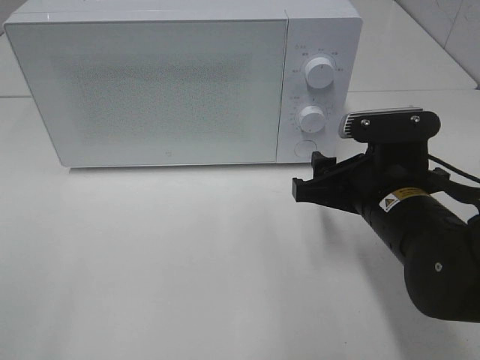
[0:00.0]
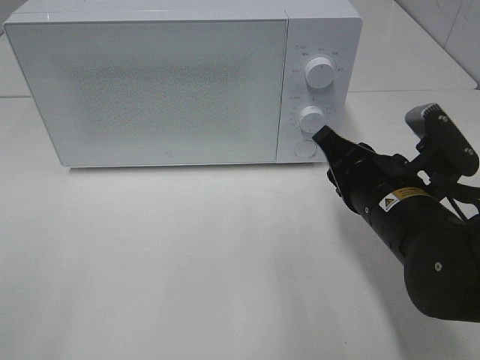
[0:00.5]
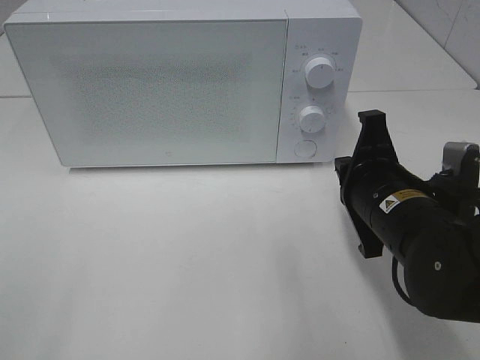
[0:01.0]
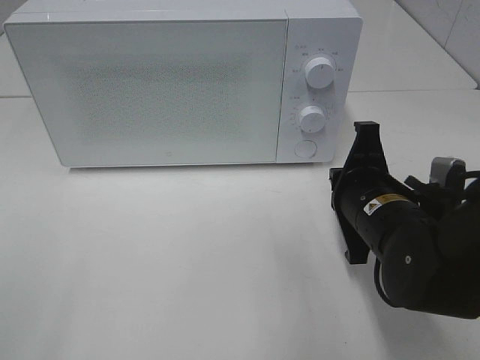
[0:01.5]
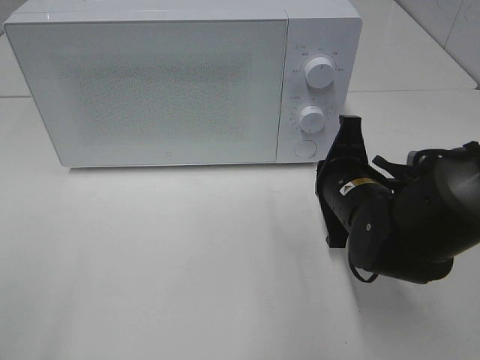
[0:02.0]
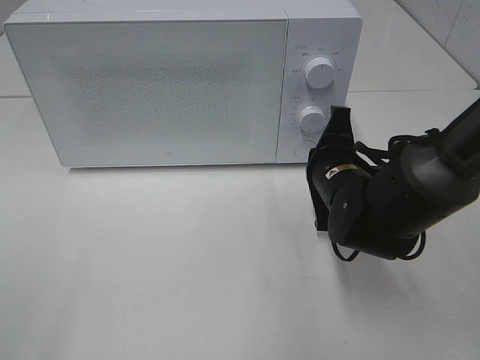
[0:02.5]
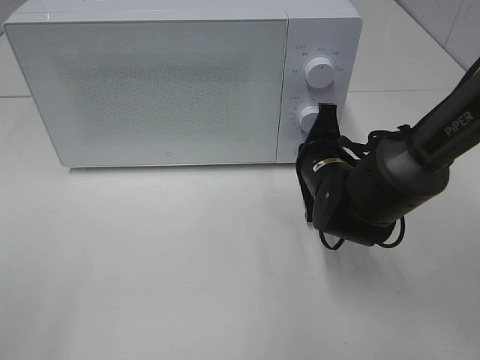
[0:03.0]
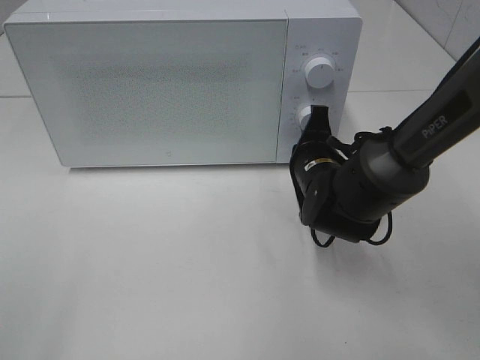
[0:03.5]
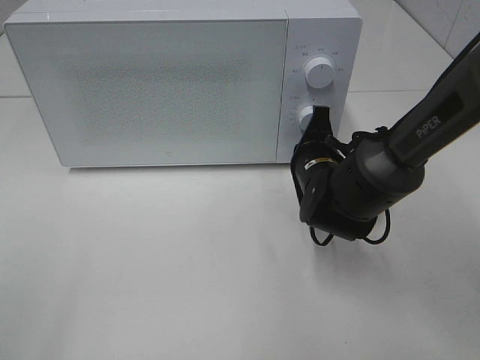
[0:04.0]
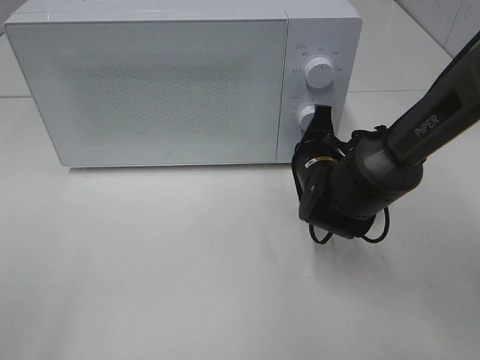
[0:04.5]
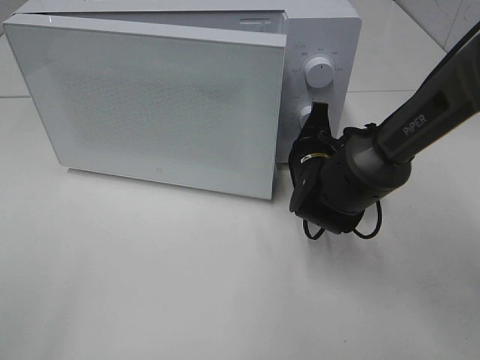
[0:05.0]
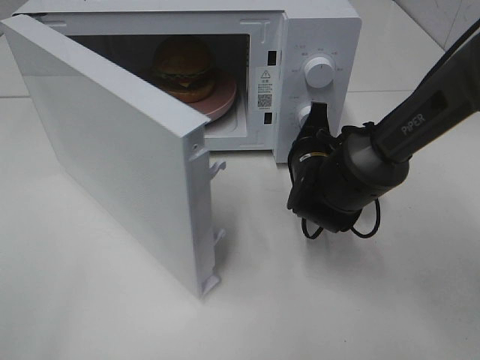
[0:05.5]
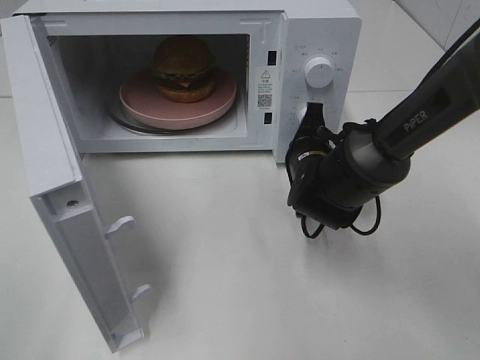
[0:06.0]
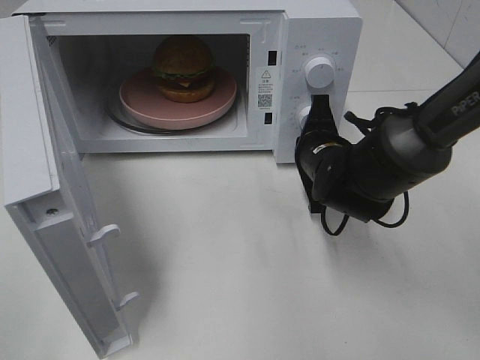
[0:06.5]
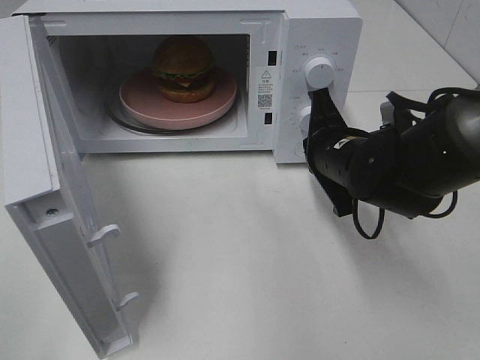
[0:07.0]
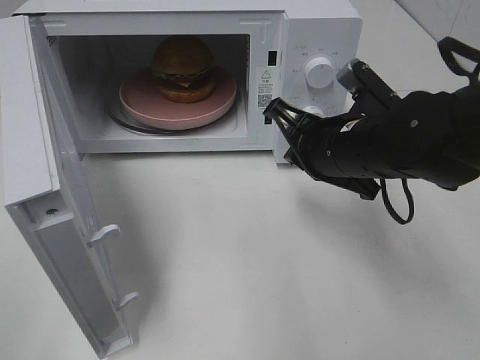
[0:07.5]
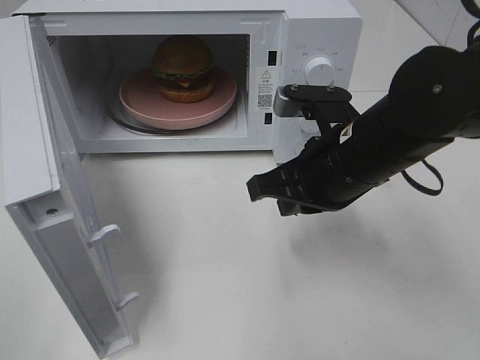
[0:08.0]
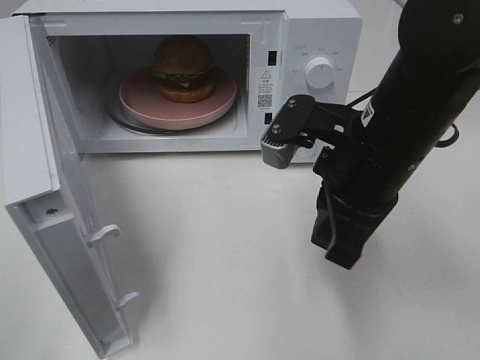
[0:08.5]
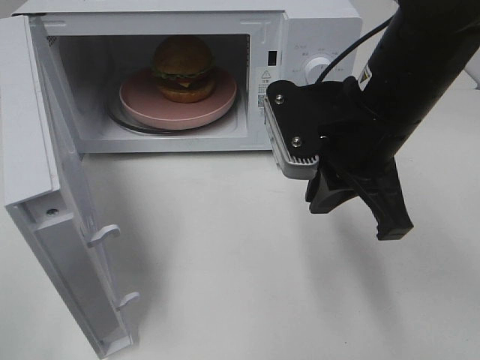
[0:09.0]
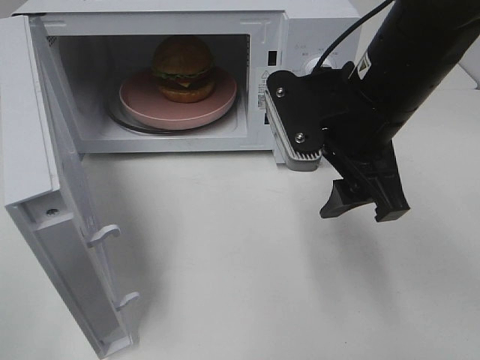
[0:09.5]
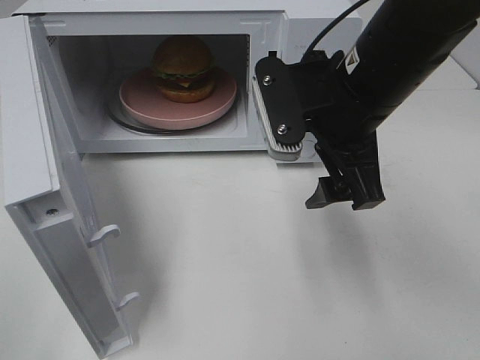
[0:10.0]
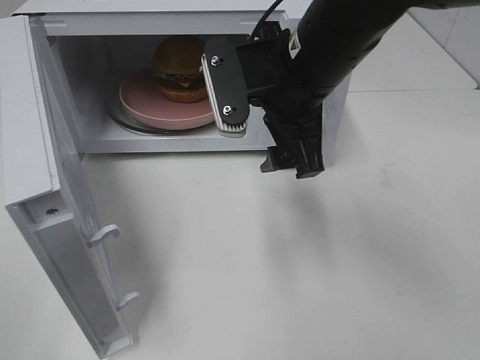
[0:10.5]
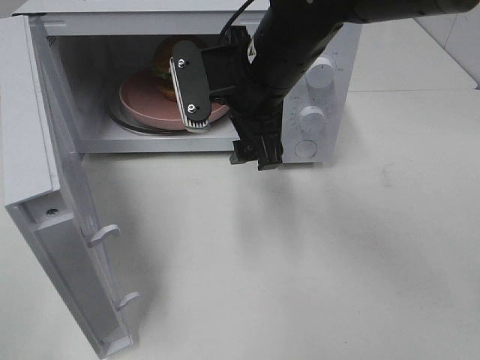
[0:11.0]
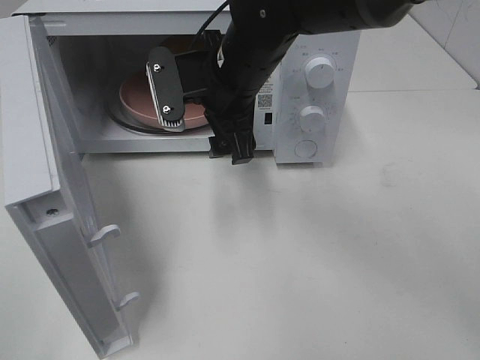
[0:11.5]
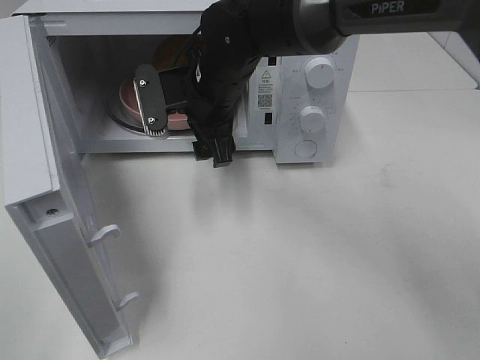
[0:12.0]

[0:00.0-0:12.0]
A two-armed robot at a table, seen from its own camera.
Task of the whole recording: Heat the burger.
Step, 0:00.0 to 0:06.5: Right hand: press the switch.
0:00.0 to 0:02.0: The right gripper ends up about 5 cm from where it was, and closes up.
0:02.0 to 0:04.0: The right gripper is displaced forward by roughly 5 cm.
0:06.0 to 0:08.0: The right gripper is displaced upward and backward by approximately 15 cm.
0:08.0 to 0:10.0: The right gripper goes approximately 5 cm upward, and opens.
0:10.0 to 0:12.0: The right gripper moves to the left, forward and downward, roughly 20 cm.

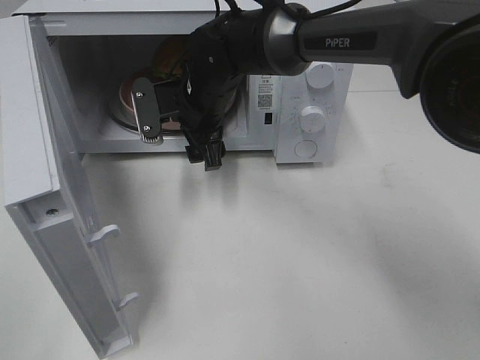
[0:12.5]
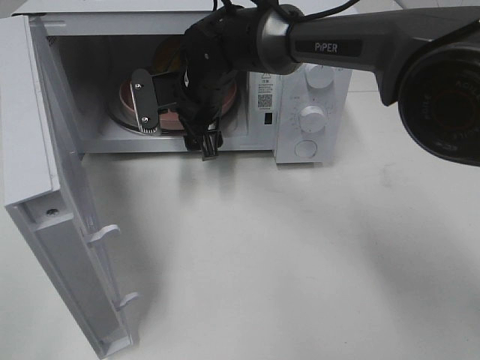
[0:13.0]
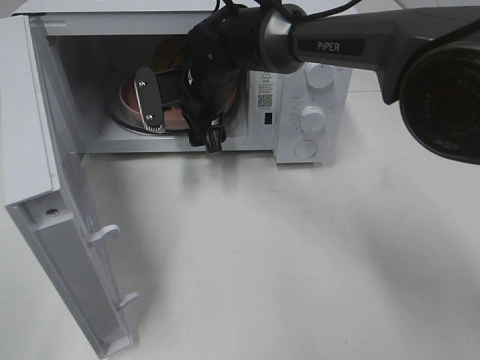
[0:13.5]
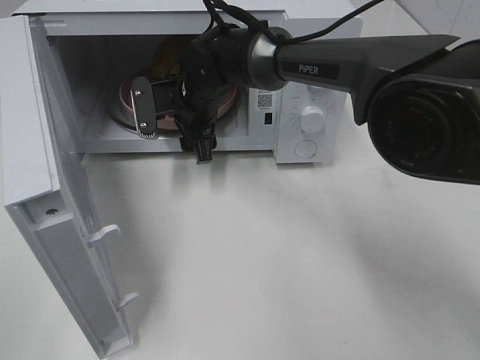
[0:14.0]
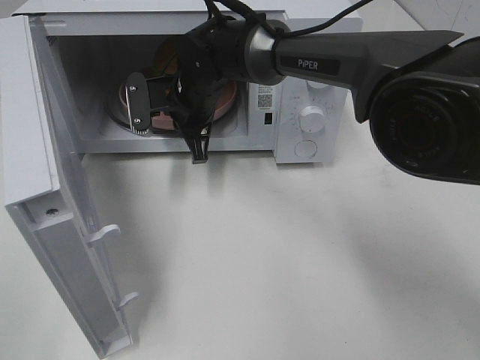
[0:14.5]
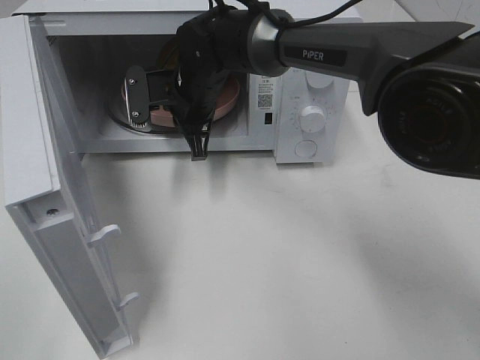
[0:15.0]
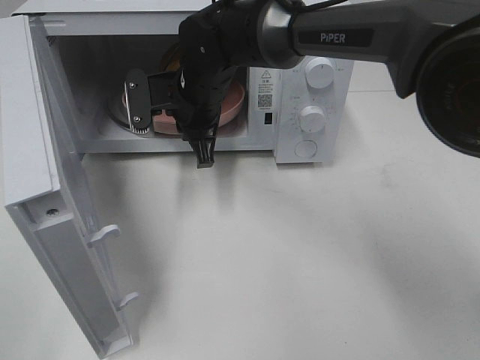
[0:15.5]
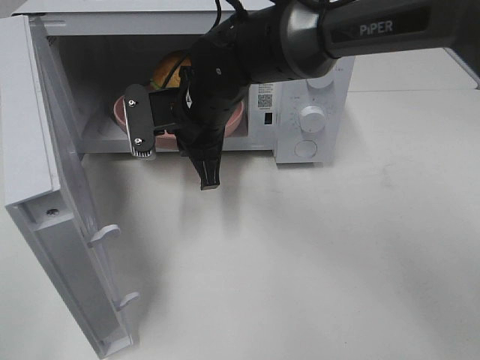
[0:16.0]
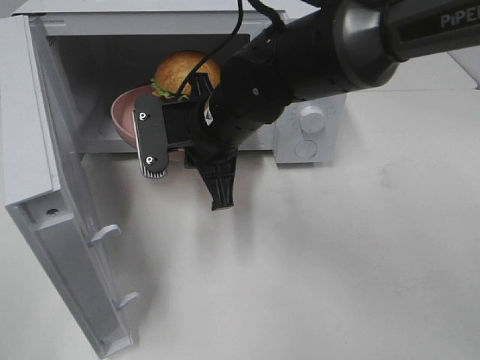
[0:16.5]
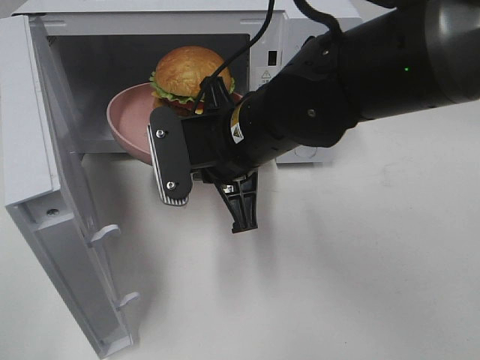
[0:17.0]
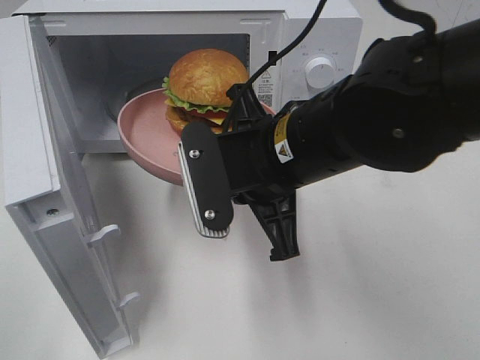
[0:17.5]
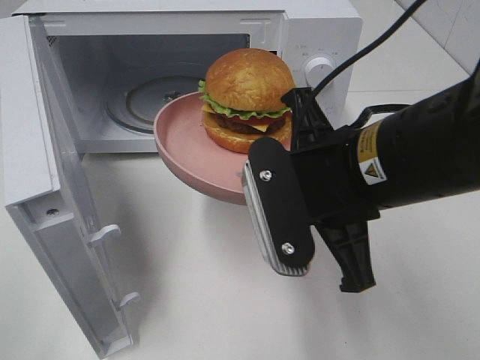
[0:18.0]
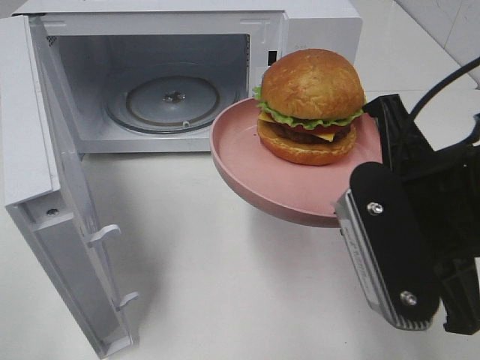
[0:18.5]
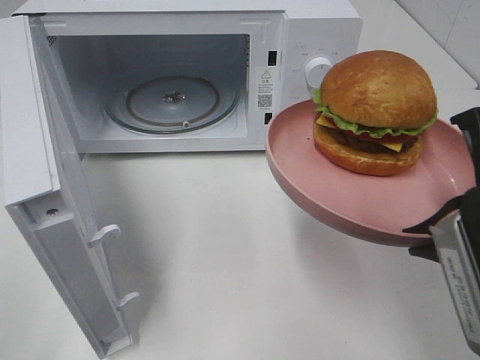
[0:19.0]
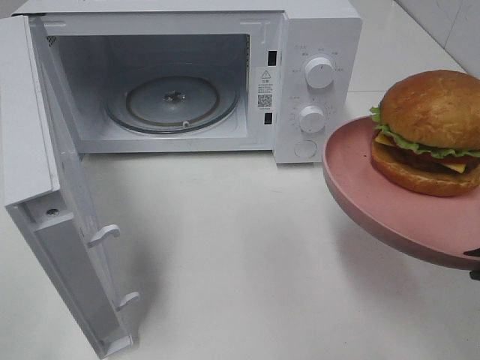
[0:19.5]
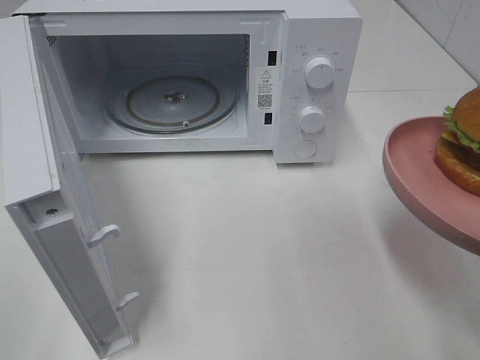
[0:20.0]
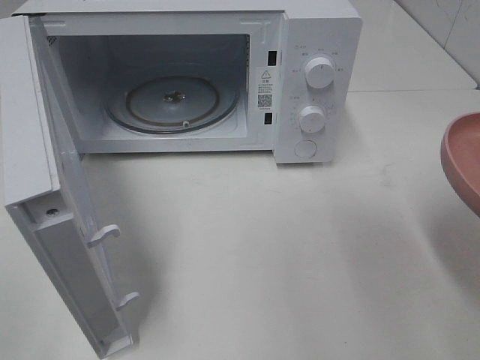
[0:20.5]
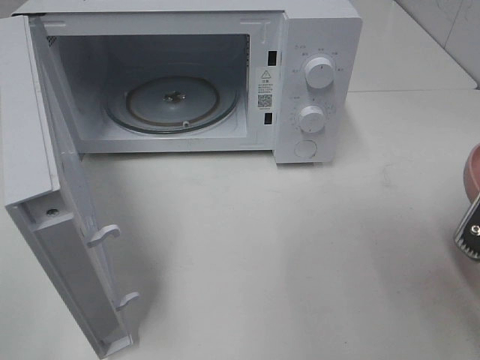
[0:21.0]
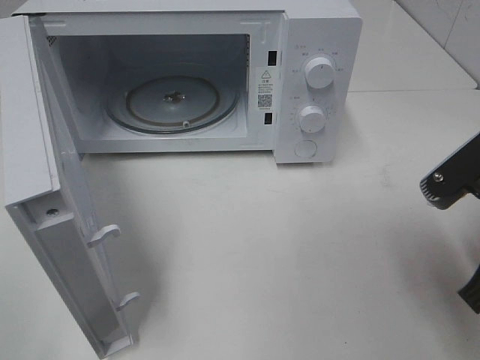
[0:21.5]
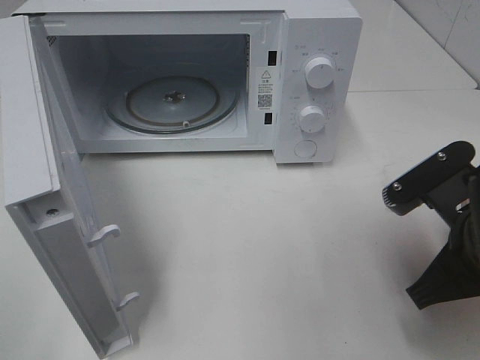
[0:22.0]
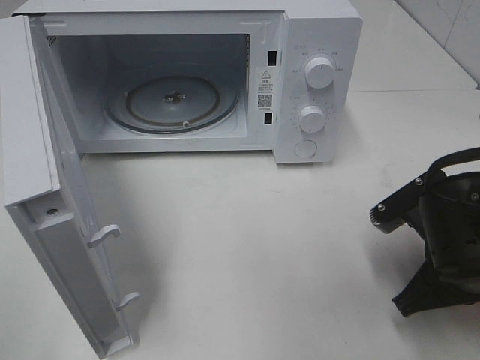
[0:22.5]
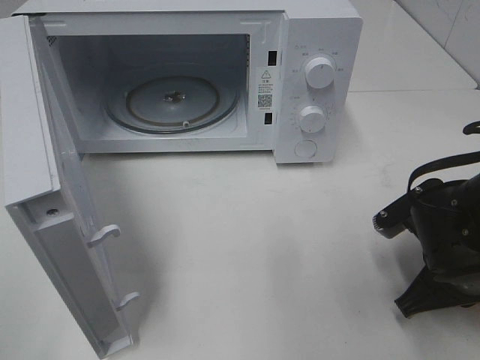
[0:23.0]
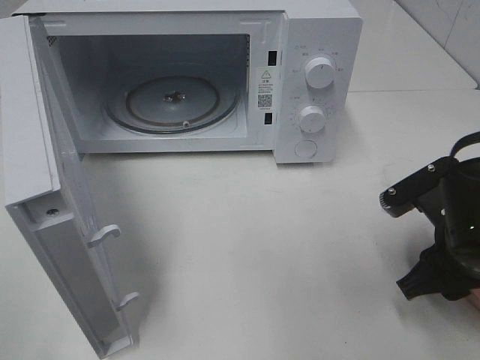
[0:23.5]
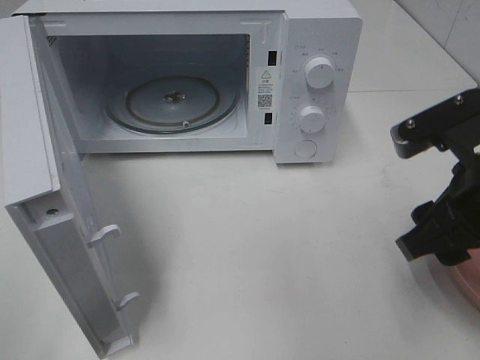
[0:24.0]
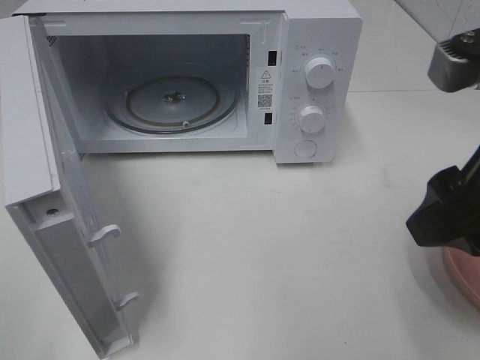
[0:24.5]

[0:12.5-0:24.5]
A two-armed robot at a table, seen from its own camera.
Task of the whole recording: Heat the burger.
Step, 0:14.5 to 0:23.0: Right hand: place the plate on the table.
0:12.5 to 0:14.5: The right gripper closes its fingers.
0:14.5 to 0:16.5: The right gripper shifts approximately 10 cm backward.
0:16.5 to 0:18.5: The right gripper travels backward, to the right and upward by some 25 cm.
0:18.5 to 0:20.5: The right gripper travels to the right by approximately 10 cm.
0:20.5 to 0:22.5: The right gripper moves downward and forward, some 15 cm.
0:22.5 to 0:24.5: The right gripper goes some 15 cm upward, and opens.

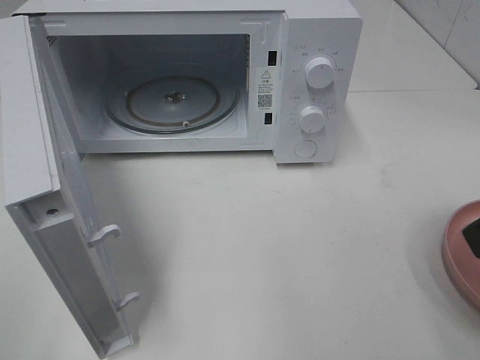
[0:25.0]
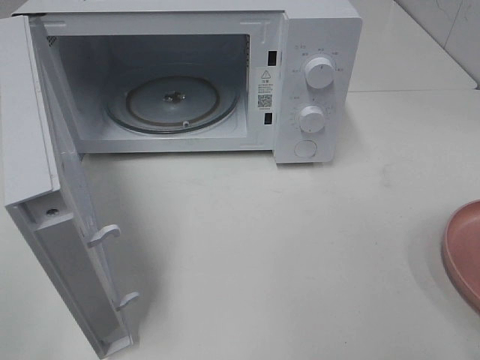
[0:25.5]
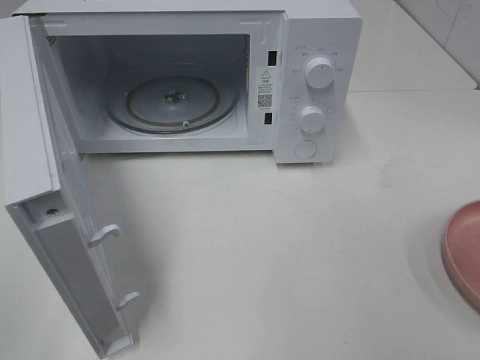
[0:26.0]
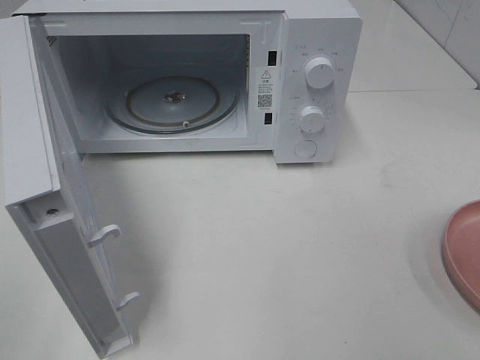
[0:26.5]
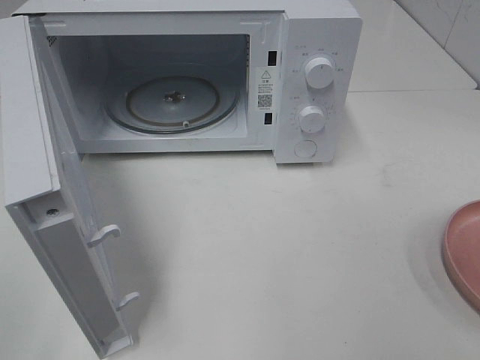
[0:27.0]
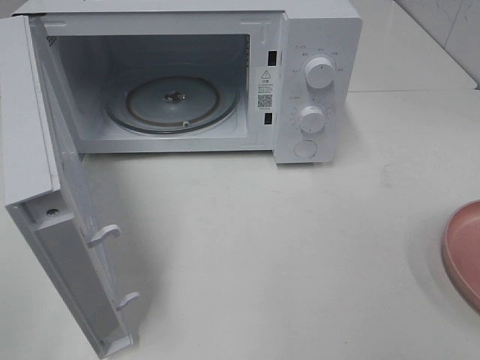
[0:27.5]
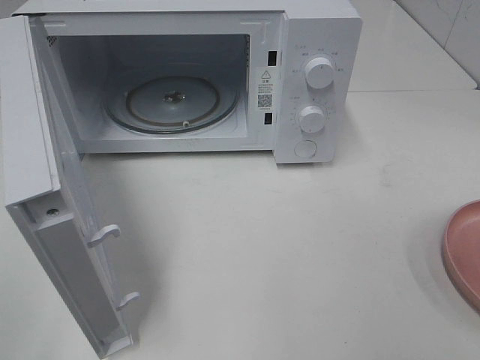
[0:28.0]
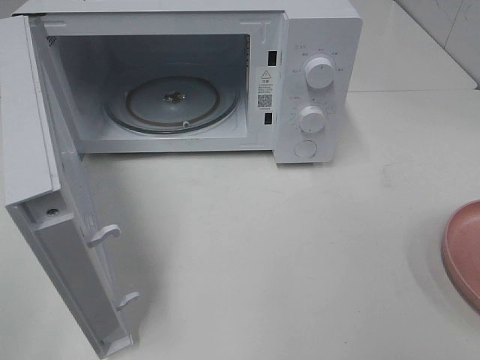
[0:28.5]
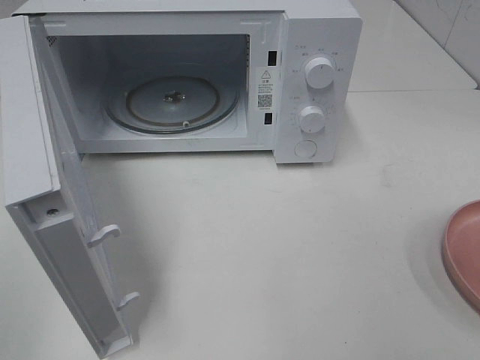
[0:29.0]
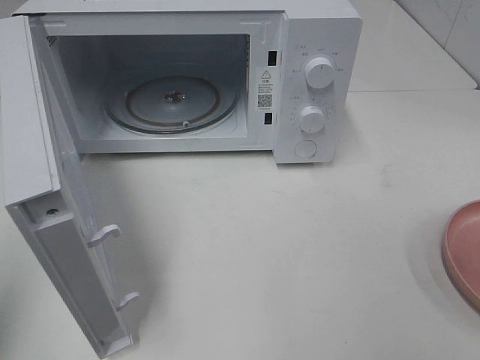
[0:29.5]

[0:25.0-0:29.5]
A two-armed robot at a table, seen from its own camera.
Task of the whole recording: Heat the burger.
0:25.0 to 0:27.0: The right gripper moves backward and to the right, some 15 cm.
